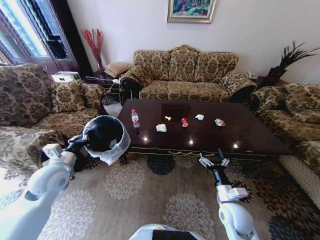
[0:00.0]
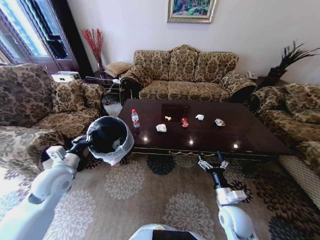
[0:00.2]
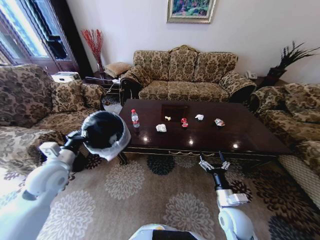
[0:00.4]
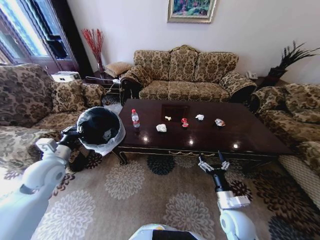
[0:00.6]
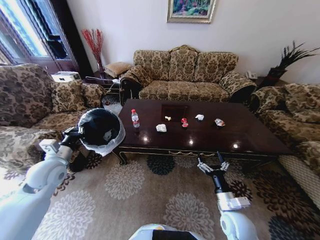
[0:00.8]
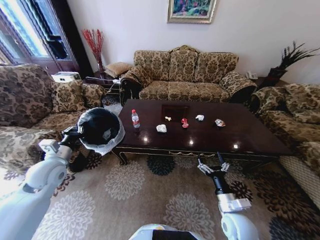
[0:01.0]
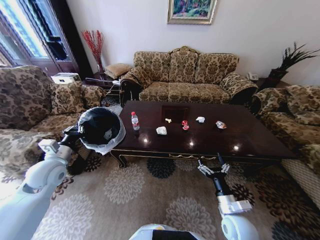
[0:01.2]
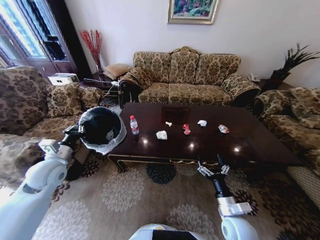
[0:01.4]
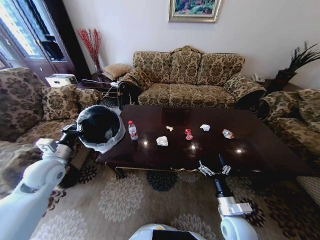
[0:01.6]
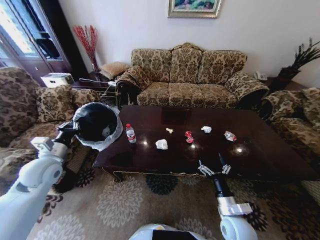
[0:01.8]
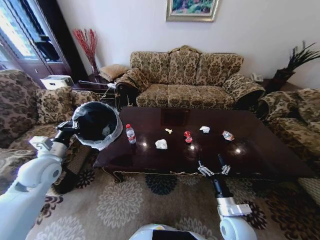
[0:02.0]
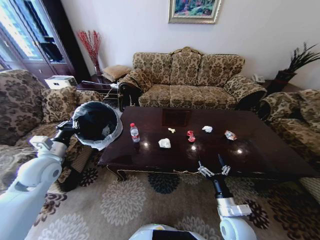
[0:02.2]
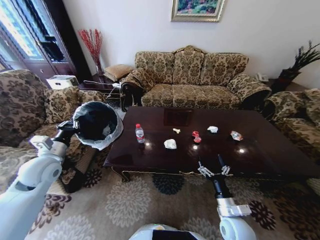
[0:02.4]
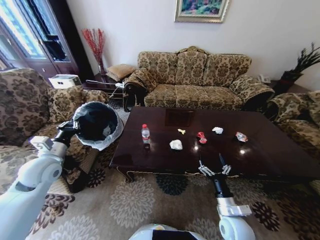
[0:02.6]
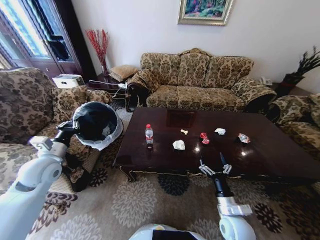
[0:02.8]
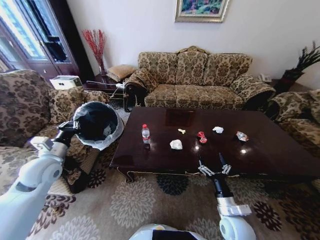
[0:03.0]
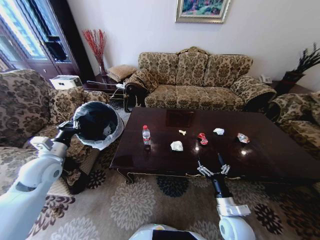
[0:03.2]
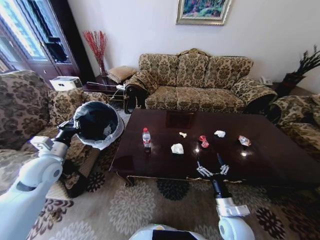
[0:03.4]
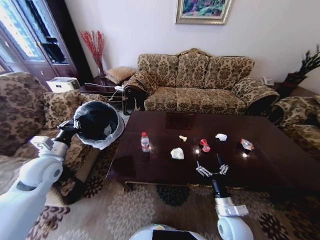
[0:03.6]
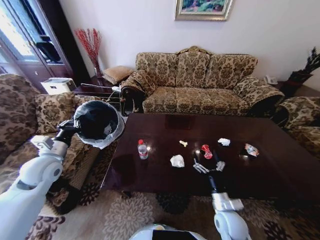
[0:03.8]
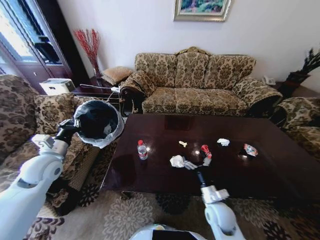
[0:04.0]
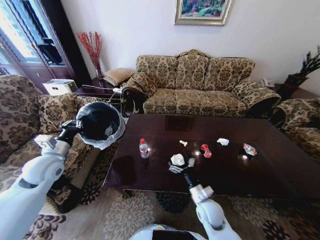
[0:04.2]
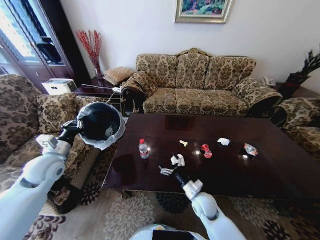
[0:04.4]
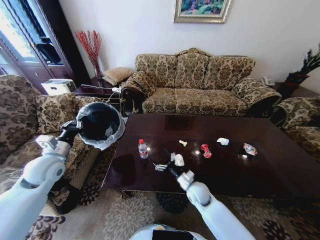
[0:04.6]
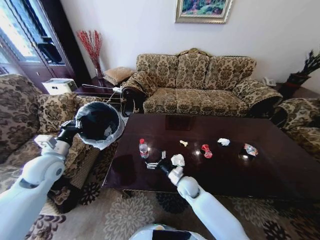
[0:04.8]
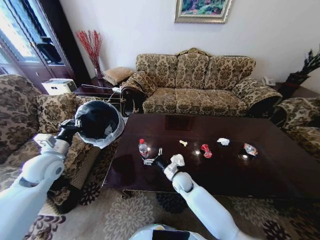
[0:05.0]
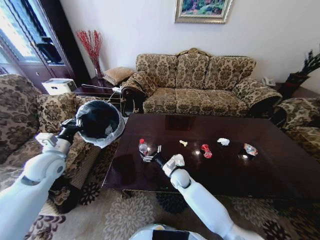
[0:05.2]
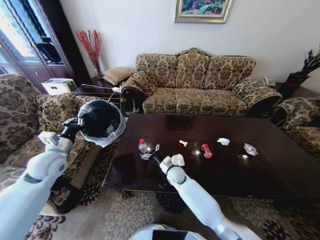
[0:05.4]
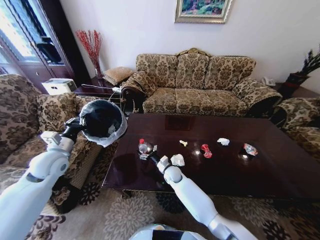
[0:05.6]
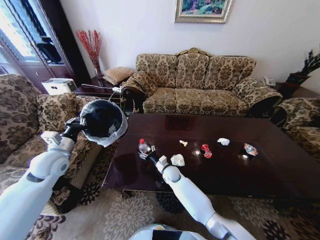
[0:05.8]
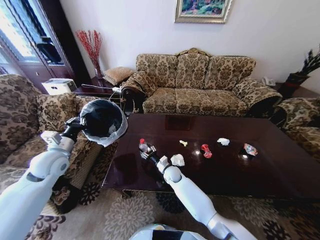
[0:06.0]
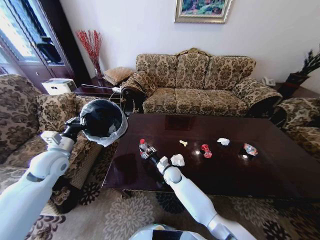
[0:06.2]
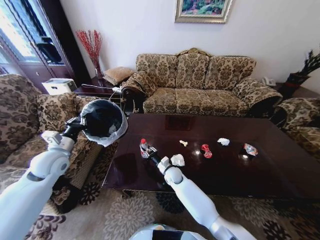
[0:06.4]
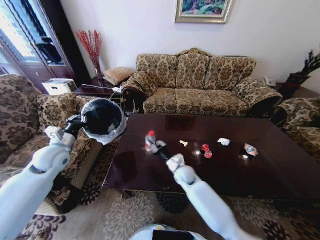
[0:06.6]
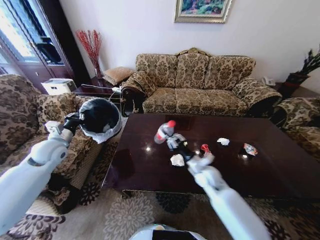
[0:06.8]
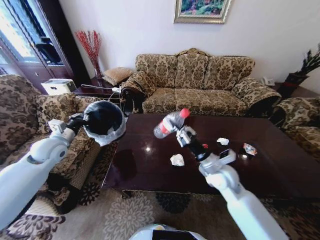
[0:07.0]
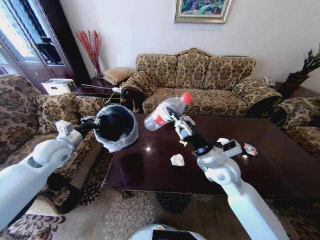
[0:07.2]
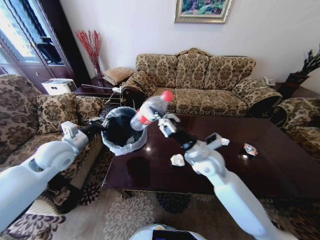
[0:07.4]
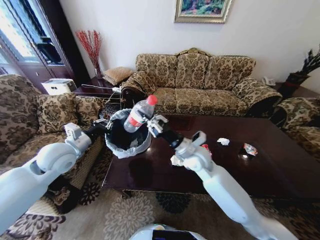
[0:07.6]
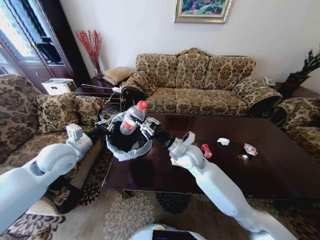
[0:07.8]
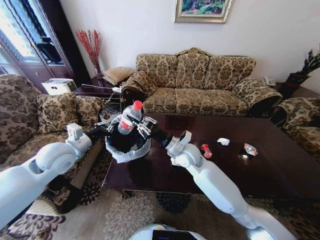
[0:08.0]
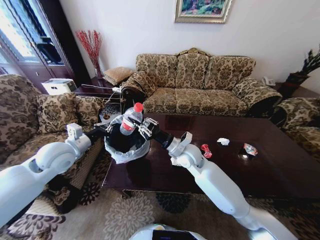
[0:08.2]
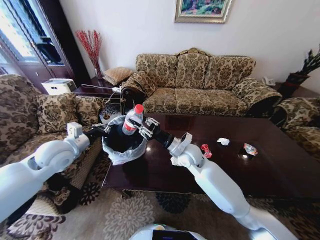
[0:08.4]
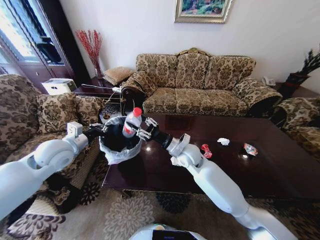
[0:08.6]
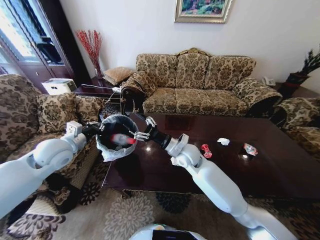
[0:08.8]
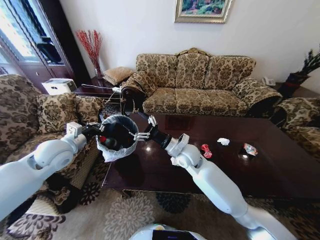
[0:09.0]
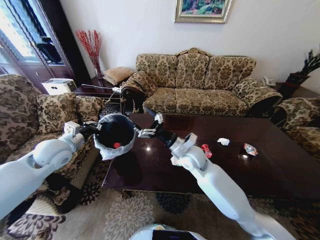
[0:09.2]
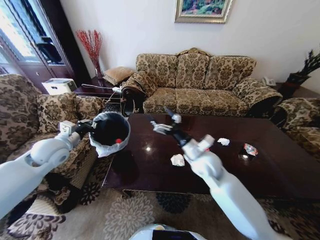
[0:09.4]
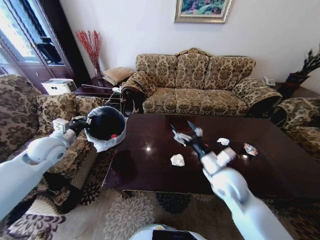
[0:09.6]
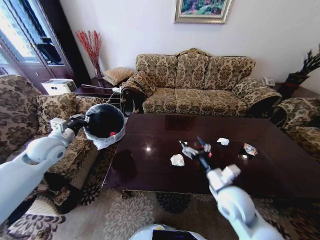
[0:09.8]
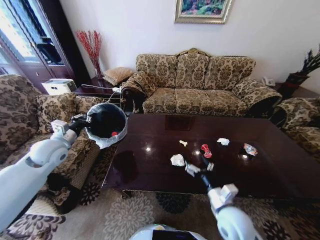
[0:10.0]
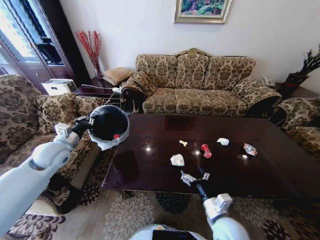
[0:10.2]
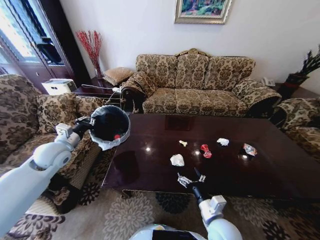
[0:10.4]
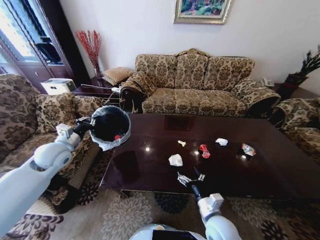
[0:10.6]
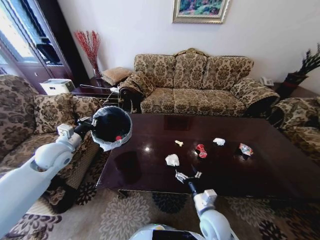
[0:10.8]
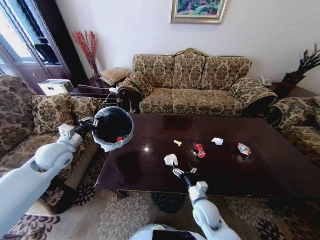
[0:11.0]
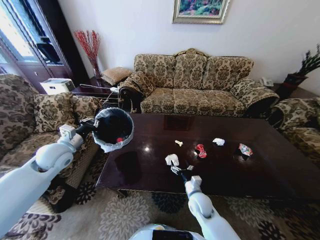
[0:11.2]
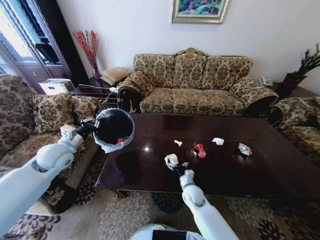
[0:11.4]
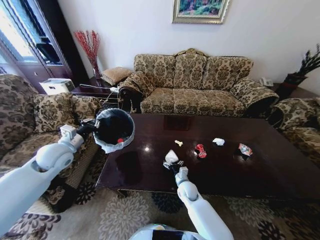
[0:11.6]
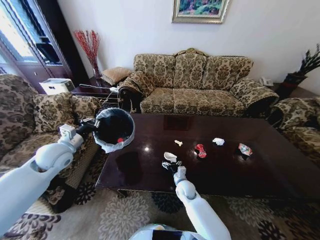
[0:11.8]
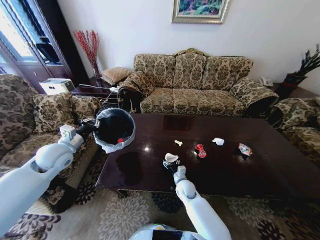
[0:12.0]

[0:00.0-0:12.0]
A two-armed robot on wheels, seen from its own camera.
Task of the whole recording: Move to the front of the table and place the trash on the table into the trash bin.
0:03.0 to 0:04.4: The right gripper goes some 10 cm to the left and forward.
0:04.4 to 0:06.0: The right gripper goes some 20 cm forward and to the left, and closes up.
0:06.0 to 0:07.6: The right gripper goes about 25 cm upward, and closes. Meanwhile the left gripper heads to the right, covering approximately 5 cm.
0:07.6 to 0:09.0: The right gripper opens its fingers.
0:09.0 to 0:10.4: The right gripper travels backward, downward and to the right by approximately 30 cm.
0:10.4 to 0:12.0: The right gripper heads forward and downward, covering about 25 cm.

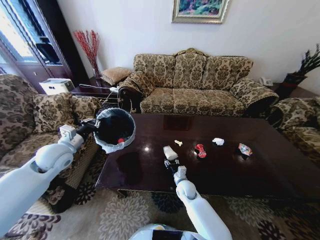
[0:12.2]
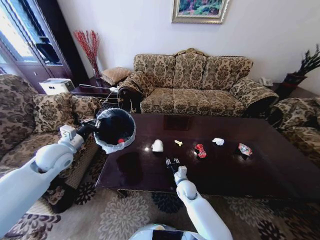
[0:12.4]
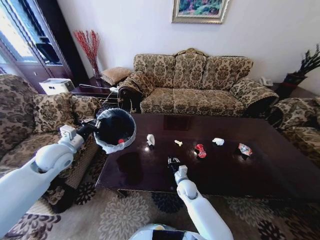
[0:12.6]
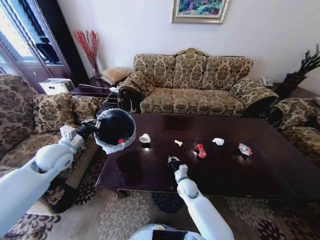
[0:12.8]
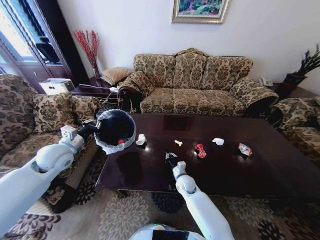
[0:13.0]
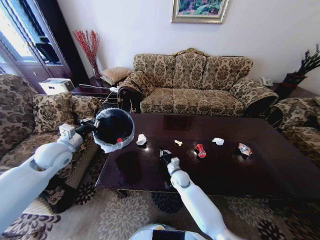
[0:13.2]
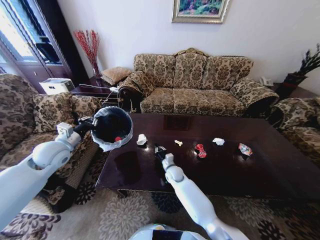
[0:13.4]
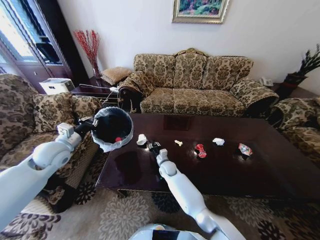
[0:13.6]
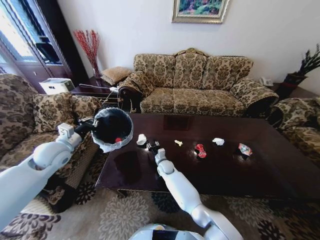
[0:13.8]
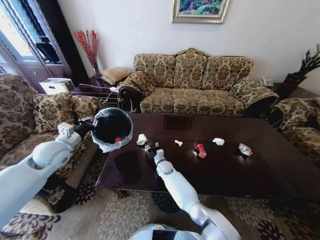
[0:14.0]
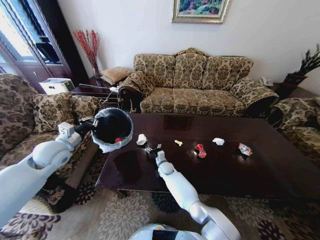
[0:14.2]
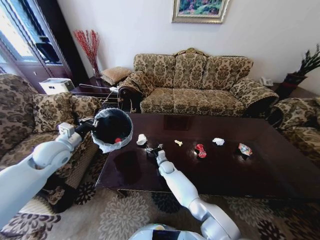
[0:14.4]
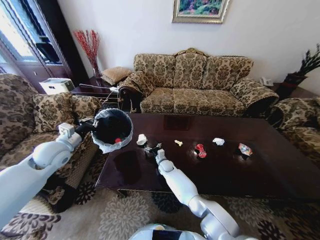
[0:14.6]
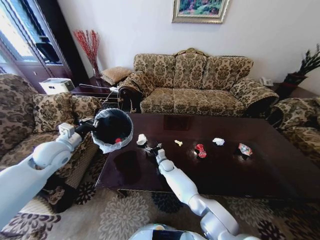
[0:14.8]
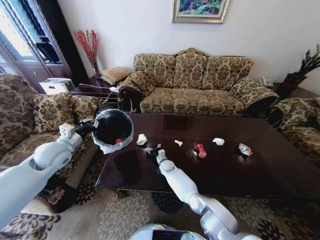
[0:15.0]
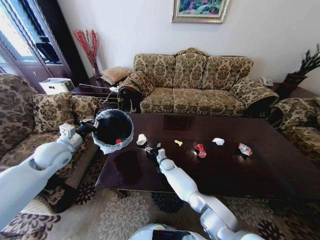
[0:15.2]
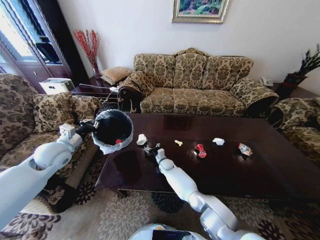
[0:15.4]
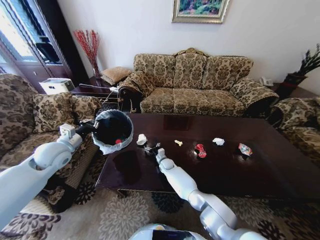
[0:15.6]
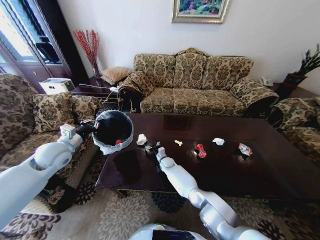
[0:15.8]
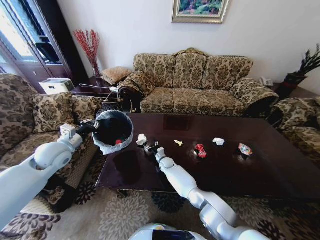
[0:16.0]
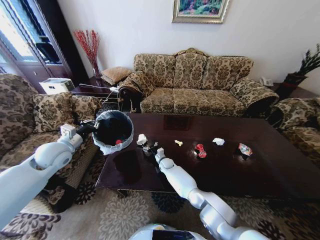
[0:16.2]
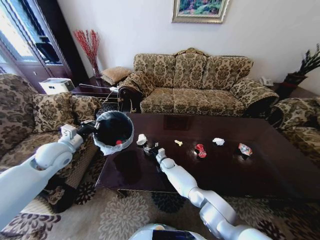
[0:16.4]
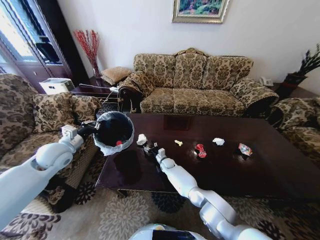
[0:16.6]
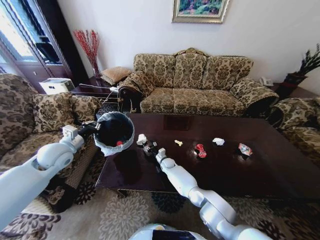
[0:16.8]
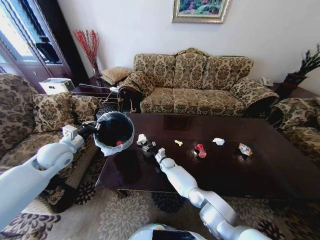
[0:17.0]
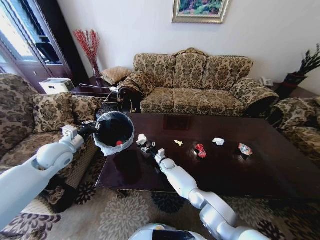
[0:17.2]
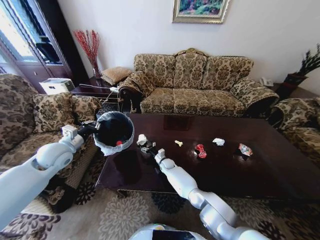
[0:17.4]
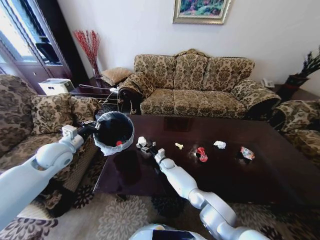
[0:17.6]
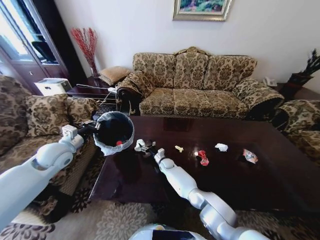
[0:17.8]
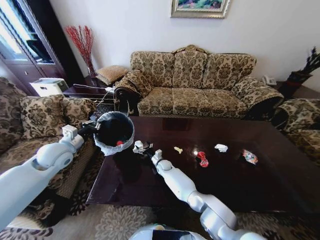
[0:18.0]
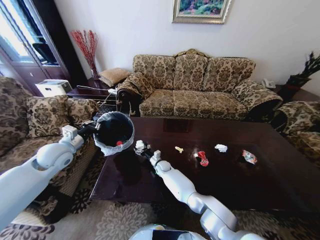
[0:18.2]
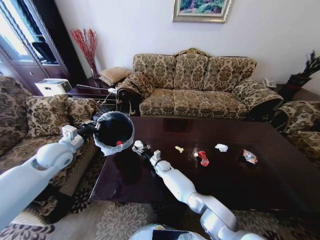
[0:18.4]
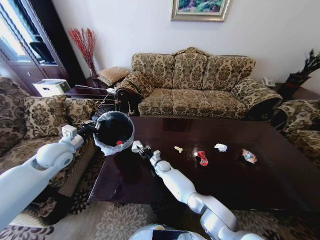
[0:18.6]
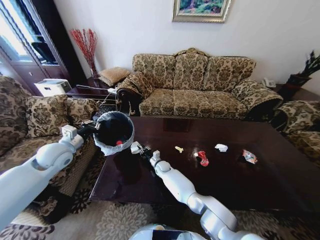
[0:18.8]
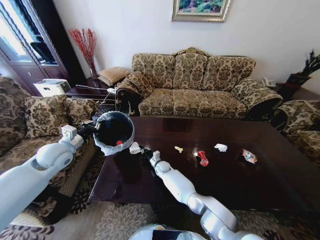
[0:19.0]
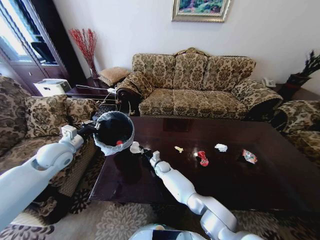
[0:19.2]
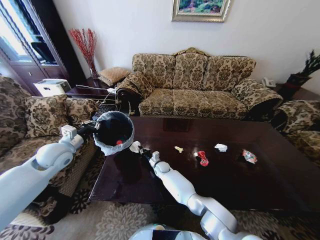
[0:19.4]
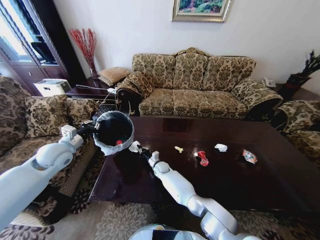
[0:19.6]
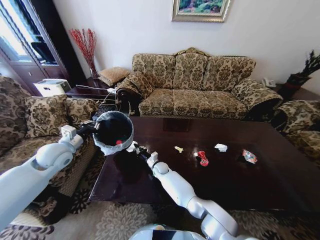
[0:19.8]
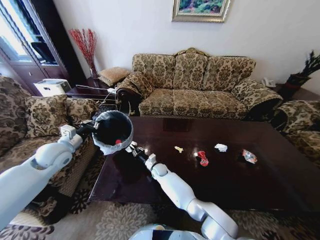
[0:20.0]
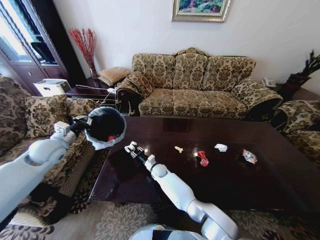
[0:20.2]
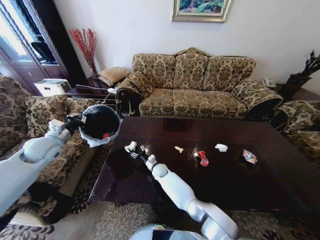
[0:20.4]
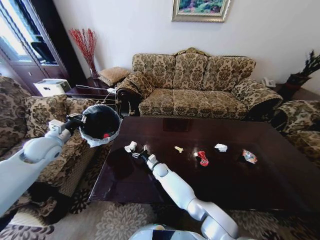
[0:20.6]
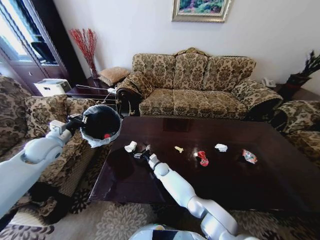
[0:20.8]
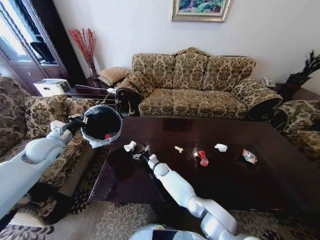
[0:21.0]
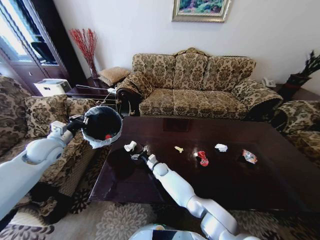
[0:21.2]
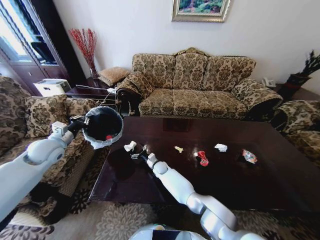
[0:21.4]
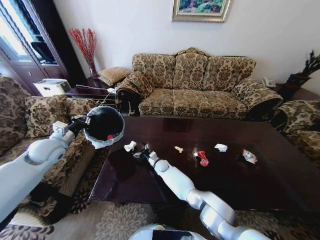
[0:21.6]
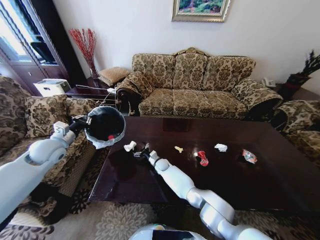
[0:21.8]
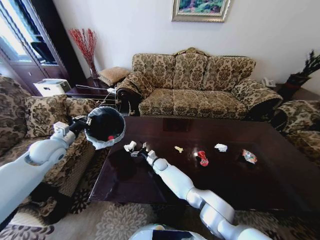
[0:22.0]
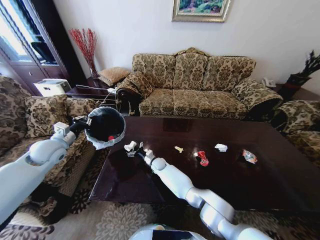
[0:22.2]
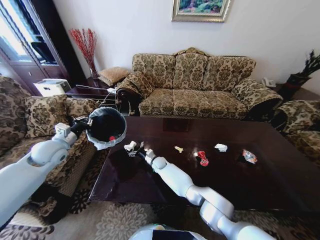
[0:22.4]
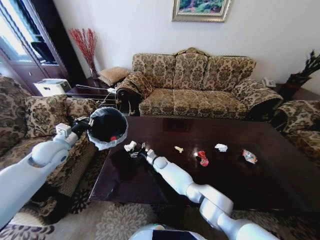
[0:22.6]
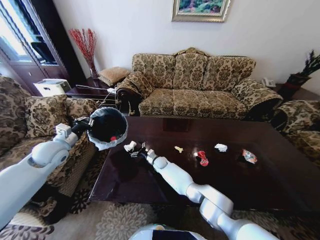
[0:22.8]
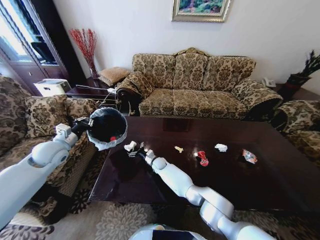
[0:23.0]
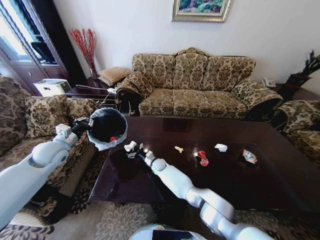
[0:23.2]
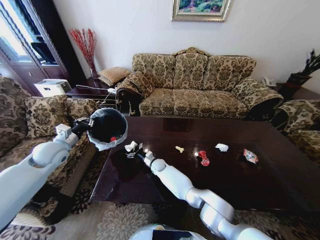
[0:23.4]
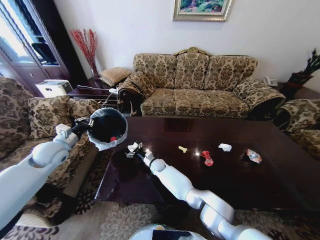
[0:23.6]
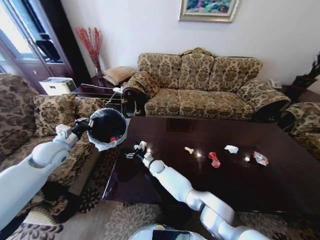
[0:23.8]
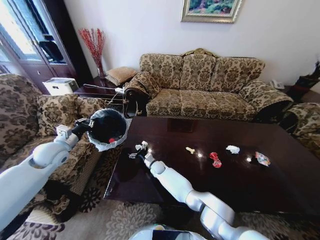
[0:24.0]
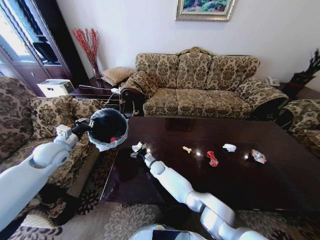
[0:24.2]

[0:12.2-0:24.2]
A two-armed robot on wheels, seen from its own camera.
Task of the whole recording: Move to the front of the table and place the trash on the table into the trash bin.
0:12.2 to 0:13.8: The right gripper moves forward and to the left, roughly 15 cm, and closes, then reopens.
0:13.8 to 0:15.2: The right gripper ends up approximately 5 cm from where it was, and opens its fingers.
0:15.2 to 0:16.6: There are only small adjustments of the grippers.
0:18.2 to 0:19.8: The right gripper closes up.
0:19.8 to 0:21.2: The right gripper opens. The left gripper changes place by some 5 cm.
0:21.2 to 0:22.6: The grippers move only a little.
